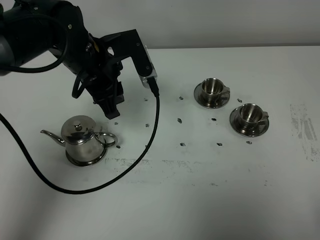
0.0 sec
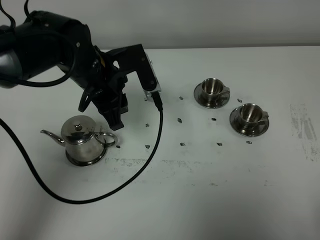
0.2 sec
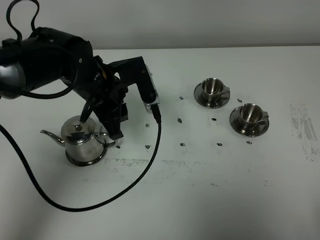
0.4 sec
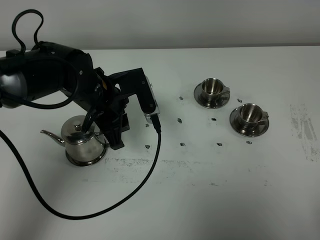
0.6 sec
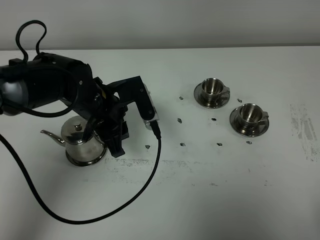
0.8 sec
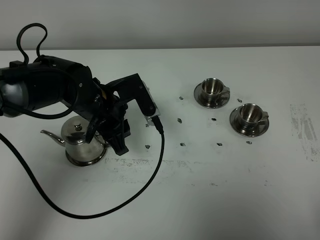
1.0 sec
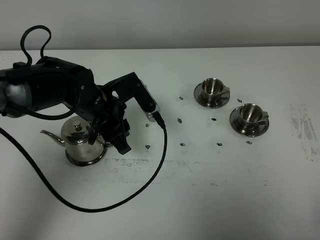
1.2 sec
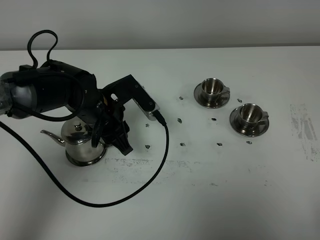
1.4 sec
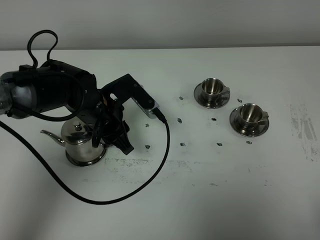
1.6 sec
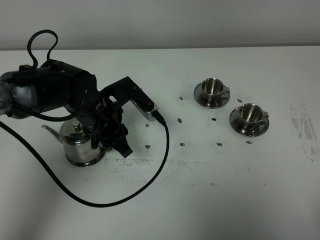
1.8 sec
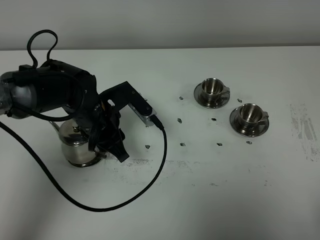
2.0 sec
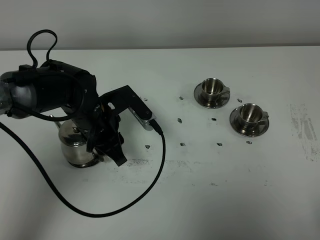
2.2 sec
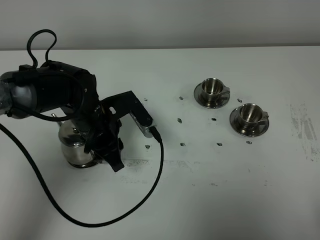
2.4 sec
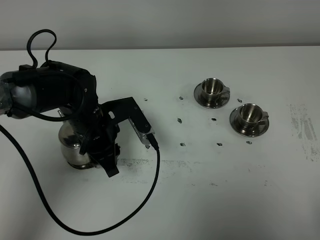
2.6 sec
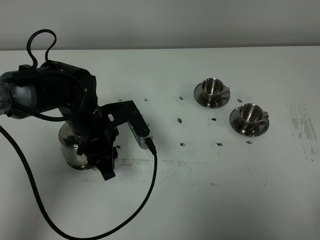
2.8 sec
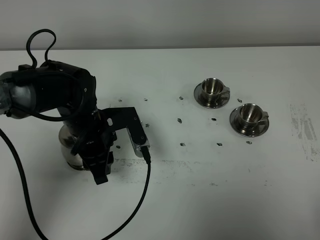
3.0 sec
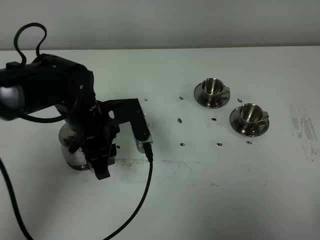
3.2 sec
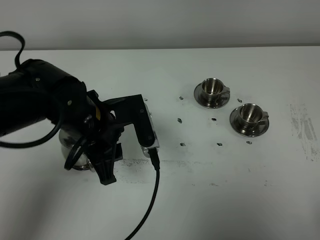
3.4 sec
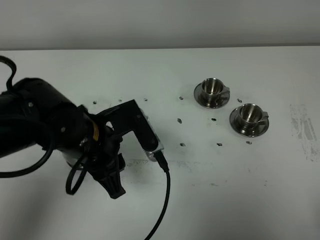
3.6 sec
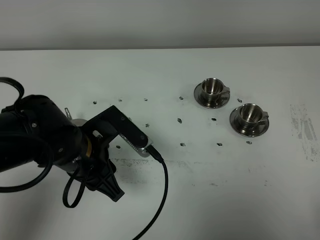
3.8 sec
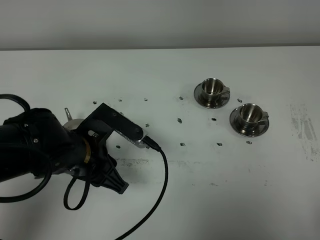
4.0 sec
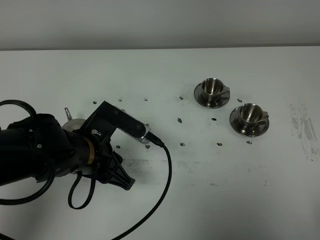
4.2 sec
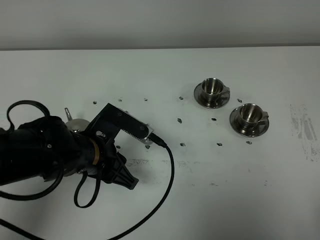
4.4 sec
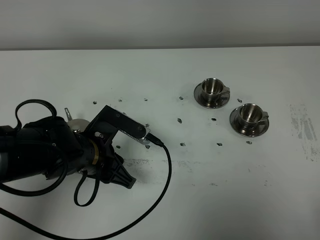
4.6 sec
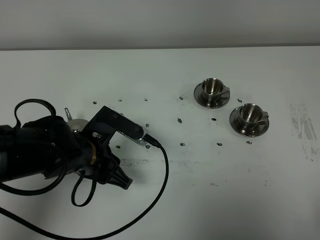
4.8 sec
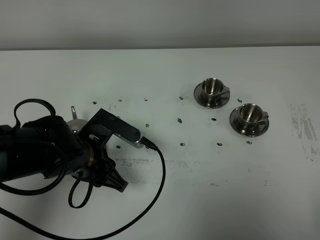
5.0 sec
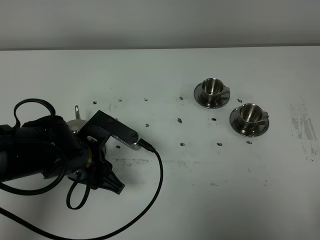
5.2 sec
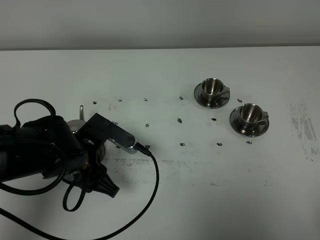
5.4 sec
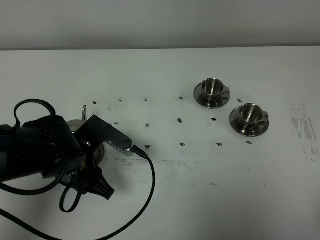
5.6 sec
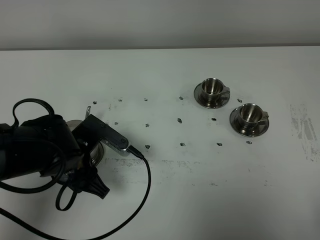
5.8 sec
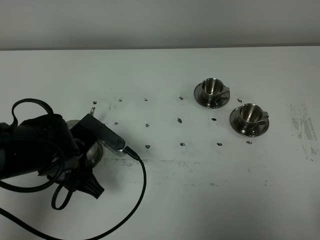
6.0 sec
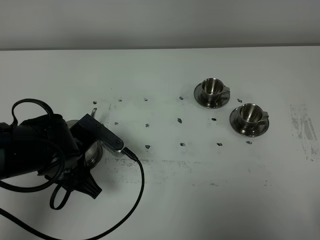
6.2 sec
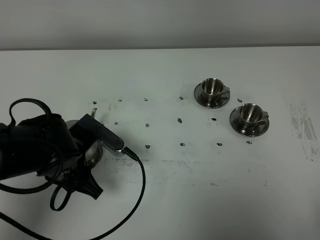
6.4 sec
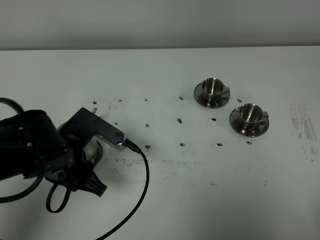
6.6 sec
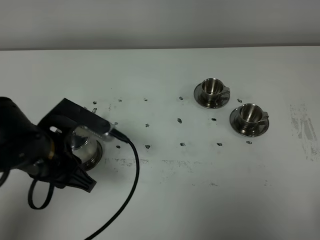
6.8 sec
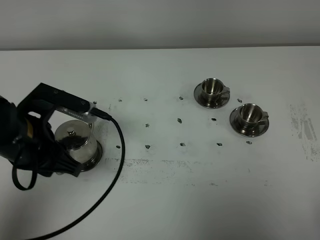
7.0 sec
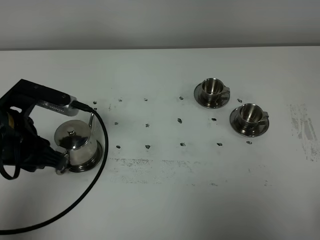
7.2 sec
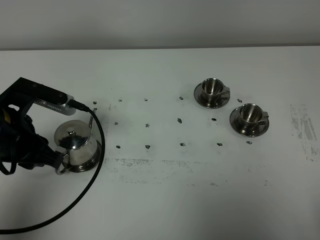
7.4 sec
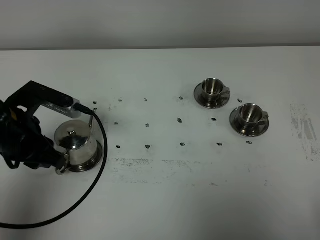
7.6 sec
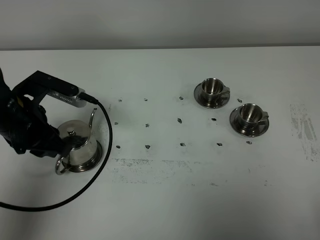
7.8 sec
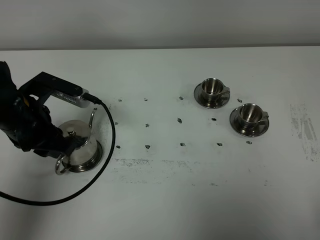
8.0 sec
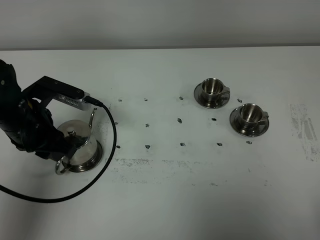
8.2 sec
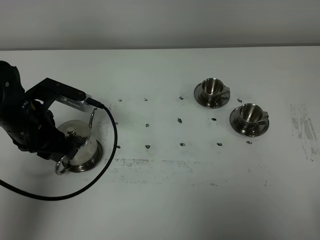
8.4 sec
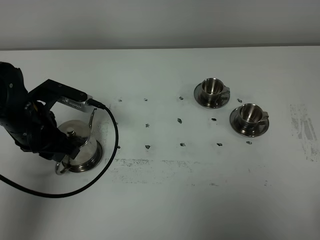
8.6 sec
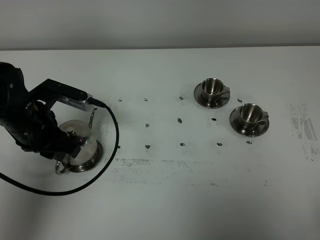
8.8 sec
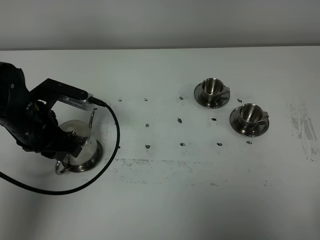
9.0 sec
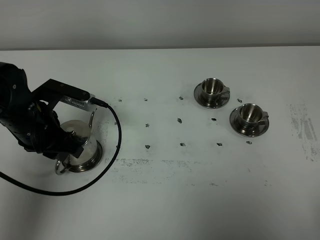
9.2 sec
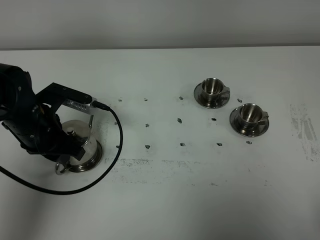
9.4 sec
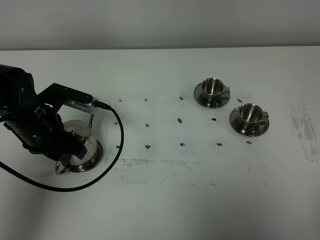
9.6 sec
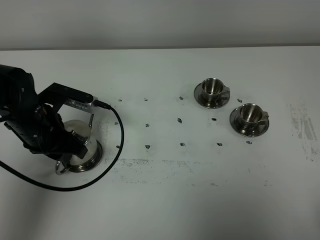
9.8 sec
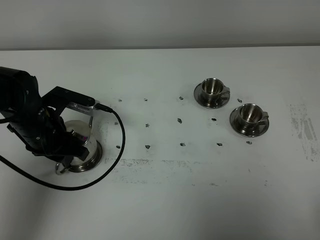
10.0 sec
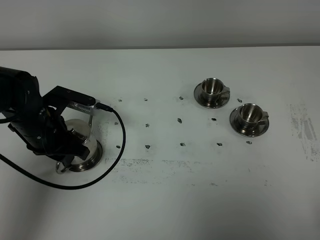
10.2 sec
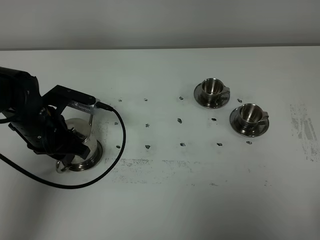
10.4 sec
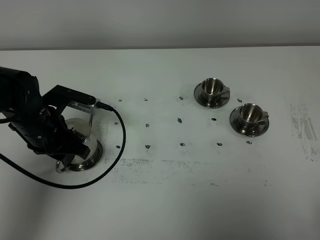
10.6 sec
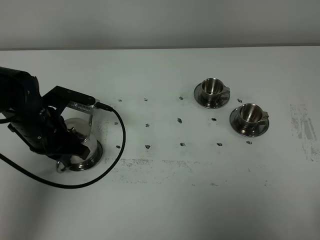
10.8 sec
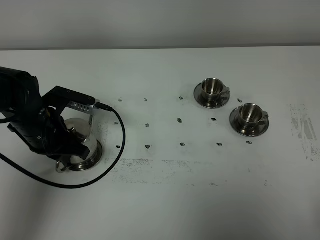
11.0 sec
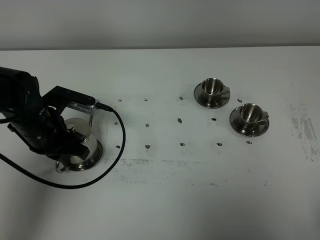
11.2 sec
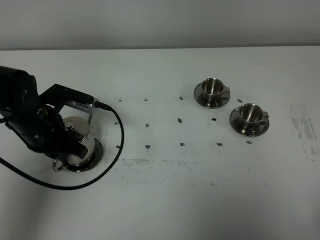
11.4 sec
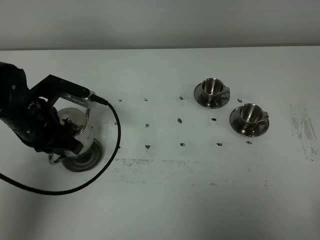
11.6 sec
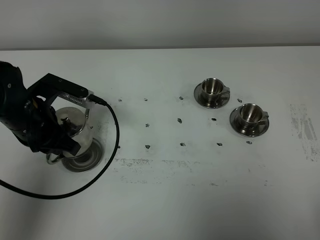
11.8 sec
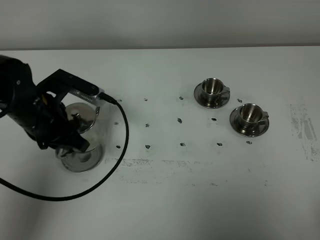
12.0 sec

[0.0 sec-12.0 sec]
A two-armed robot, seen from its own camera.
Task of the whole recording: grasp the stainless steel teapot and pour the tea into the two stainless steel teacups one by one, put the stainless steel teapot back in its original place.
Step, 0.0 sec to 11.6 sec: Pick up the teapot with the left gripper.
0.0 sec to 1.6 sec: The left gripper goes approximately 10 cm downward.
3.0 sec to 4.4 sec: The left gripper heads backward, covering approximately 5 cm.
6.0 sec to 7.6 sec: The left gripper moves to the left and upward, roughly 10 cm.
7.6 sec to 9.0 sec: The grippers move only a little.
9.0 sec to 10.4 sec: The grippers make only small movements.
10.4 sec to 12.0 sec: The left gripper travels upward by approximately 5 cm, and closes its fingers.

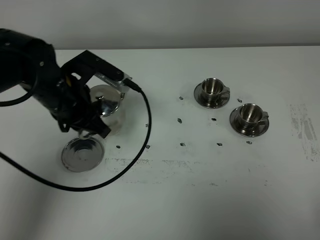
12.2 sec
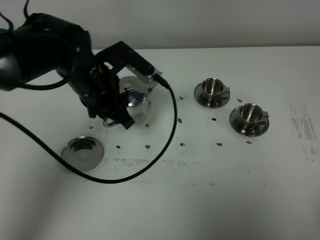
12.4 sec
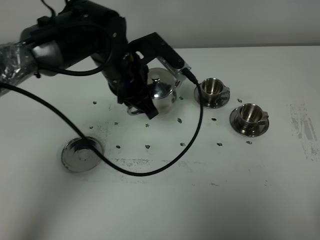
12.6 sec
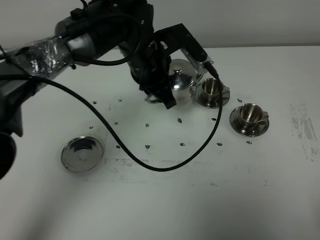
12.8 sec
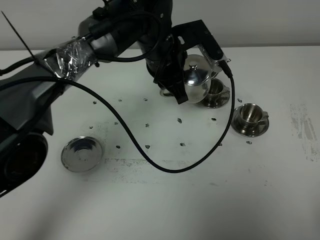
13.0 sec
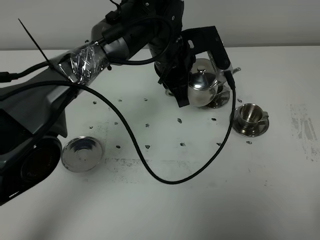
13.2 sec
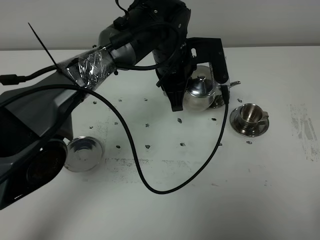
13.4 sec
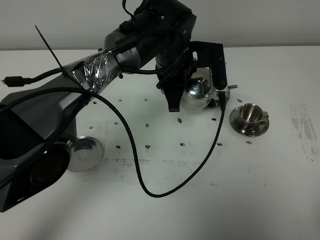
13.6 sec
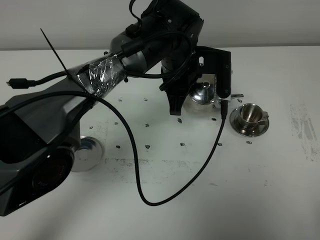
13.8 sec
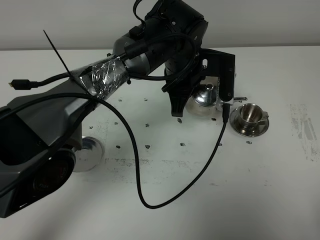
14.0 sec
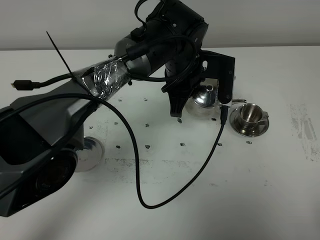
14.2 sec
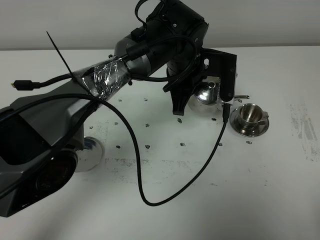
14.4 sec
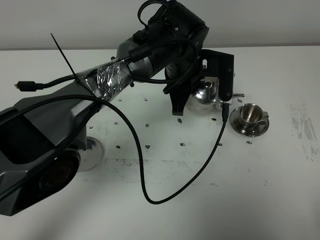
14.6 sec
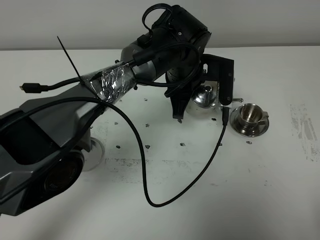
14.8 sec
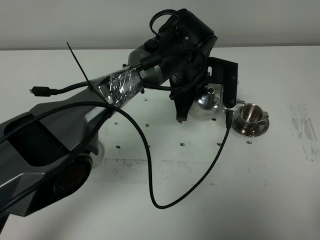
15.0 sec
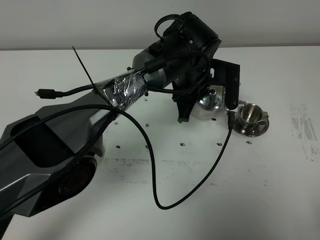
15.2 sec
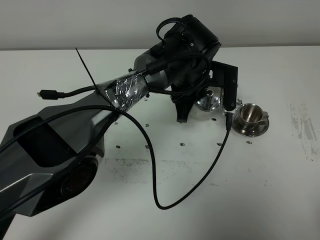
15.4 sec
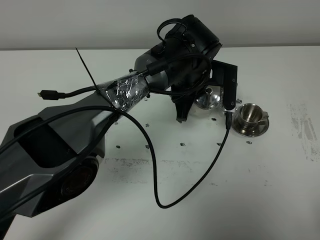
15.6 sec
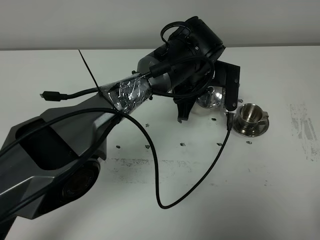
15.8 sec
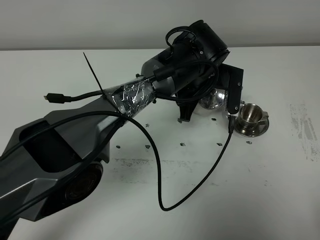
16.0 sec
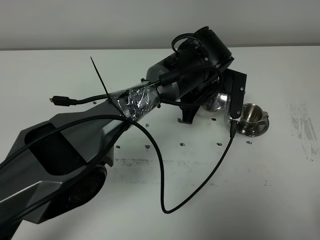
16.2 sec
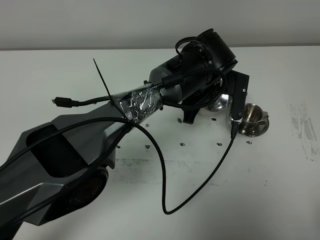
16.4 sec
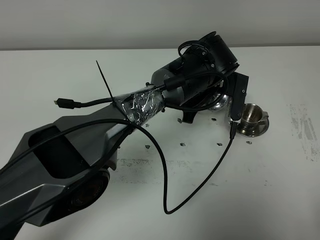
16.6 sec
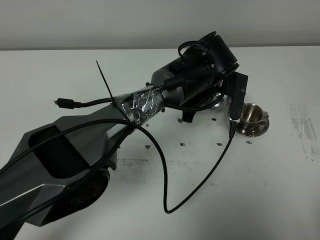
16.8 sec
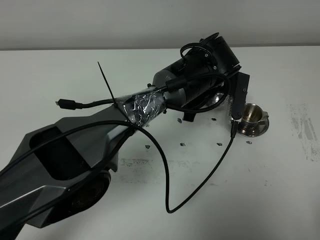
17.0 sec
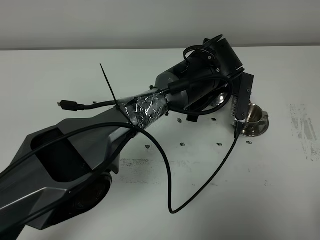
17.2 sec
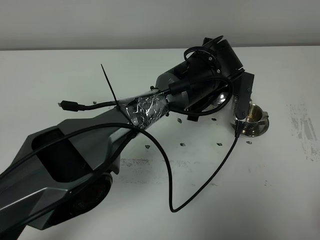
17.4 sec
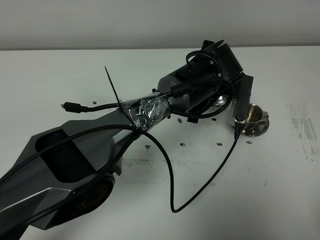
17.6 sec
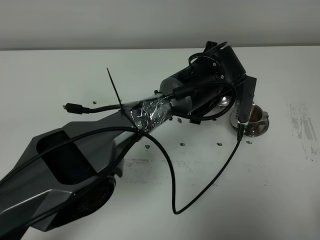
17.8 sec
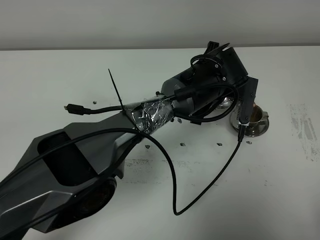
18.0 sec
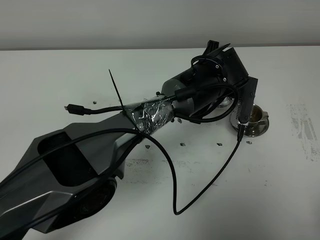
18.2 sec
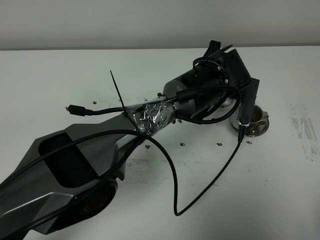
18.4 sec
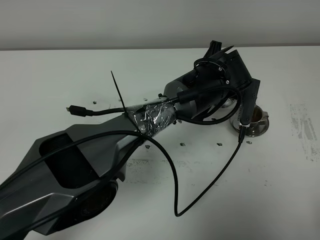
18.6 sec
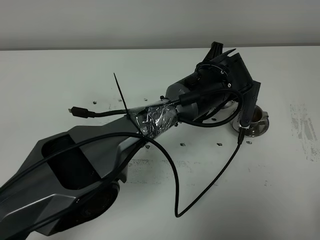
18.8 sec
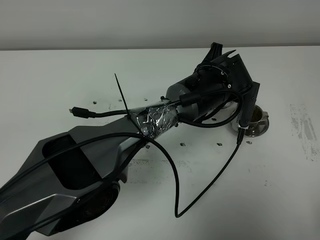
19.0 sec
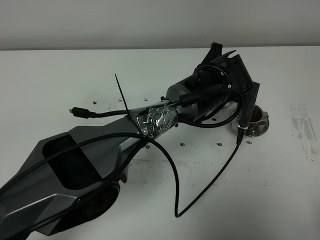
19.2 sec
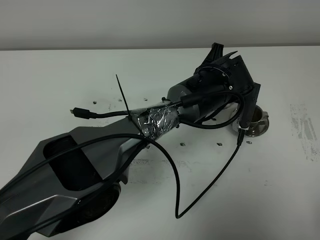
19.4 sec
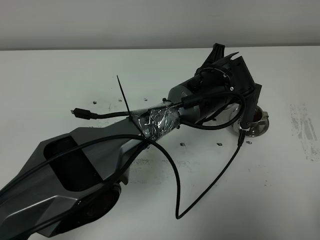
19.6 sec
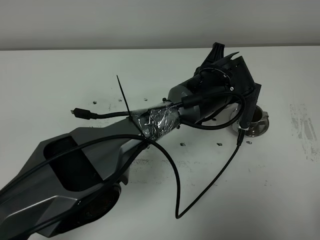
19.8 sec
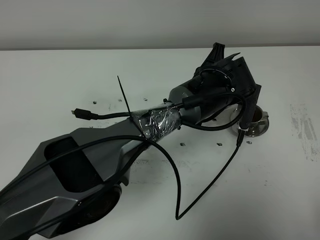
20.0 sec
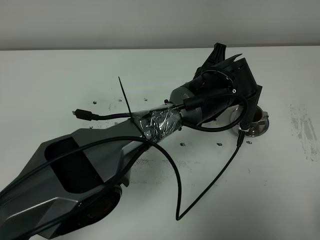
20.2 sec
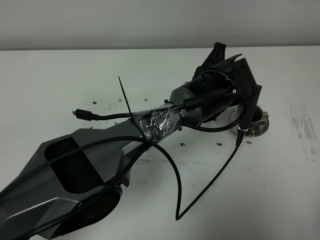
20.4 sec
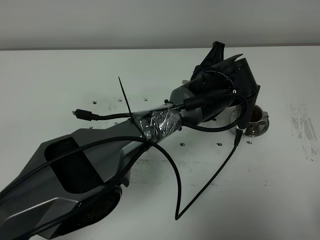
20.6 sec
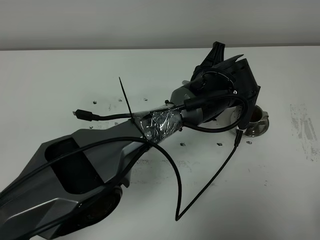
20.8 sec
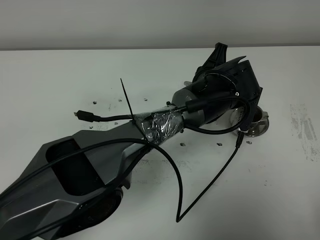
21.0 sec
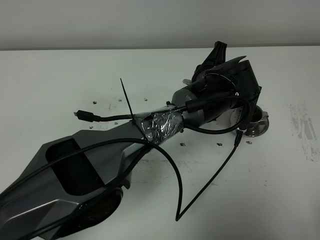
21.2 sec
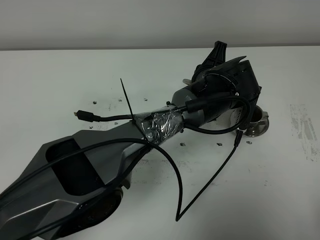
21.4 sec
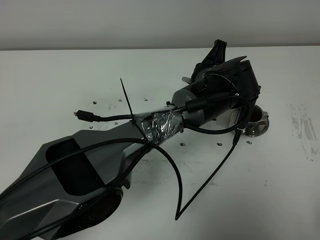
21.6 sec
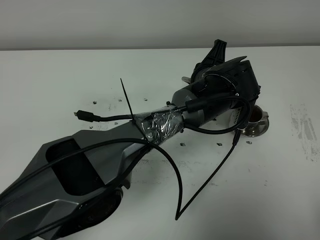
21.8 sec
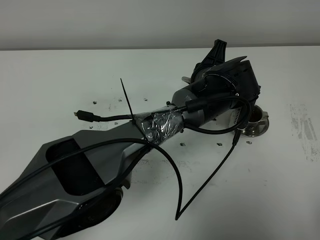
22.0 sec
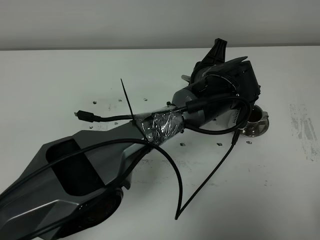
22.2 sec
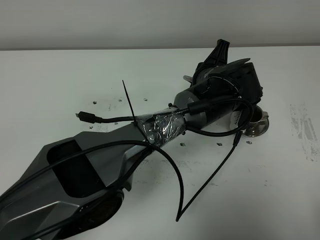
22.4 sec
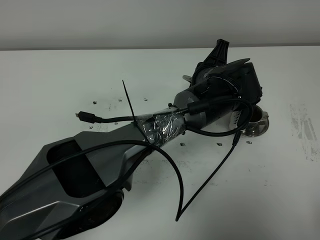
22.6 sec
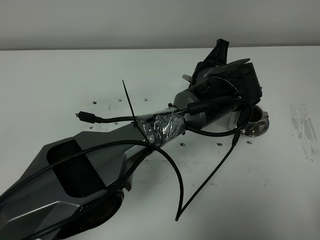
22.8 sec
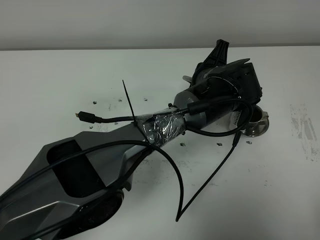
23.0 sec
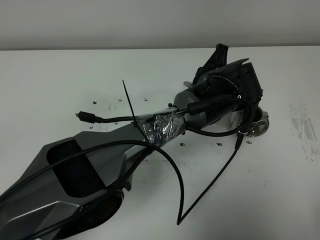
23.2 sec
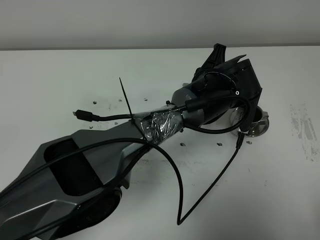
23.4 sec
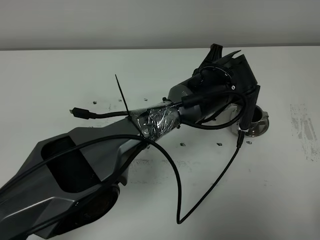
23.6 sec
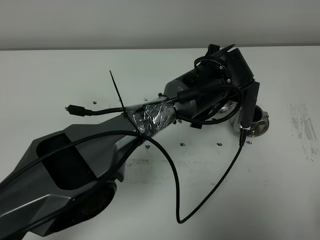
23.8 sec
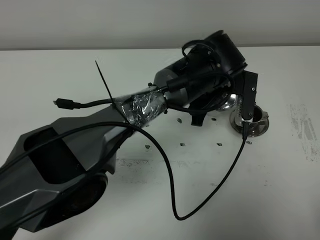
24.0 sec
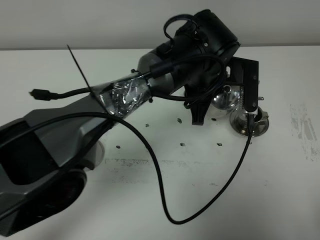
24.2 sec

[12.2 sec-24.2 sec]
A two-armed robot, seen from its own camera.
Task of the whole recording: grasp the stainless steel teapot and pour the tea into the two stainless steel teacups one by one, put the stainless steel teapot back in its original place.
12.2 sec to 13.8 sec: The left gripper goes roughly 20 cm to the right.
16.6 sec to 18.2 sec: The grippers move only a little.
18.2 sec to 19.8 sec: Both grippers stay about where they are.
19.8 sec to 21.2 sec: Both grippers stay about where they are.
21.2 sec to 22.6 sec: Neither gripper changes place.
22.6 sec to 24.2 sec: The left gripper heads upward, covering roughly 5 cm.
